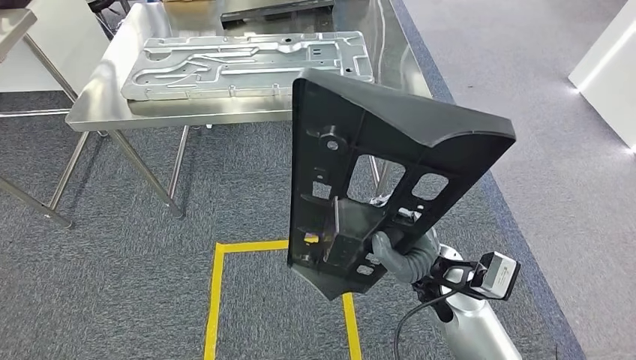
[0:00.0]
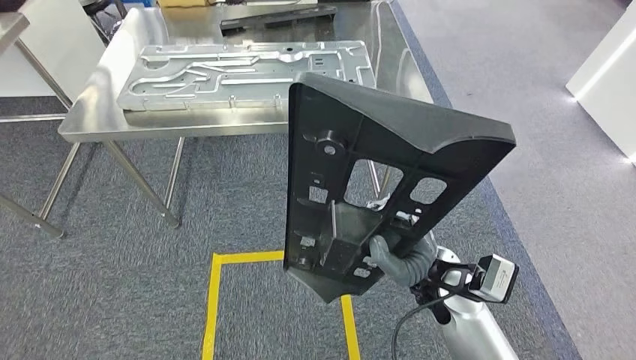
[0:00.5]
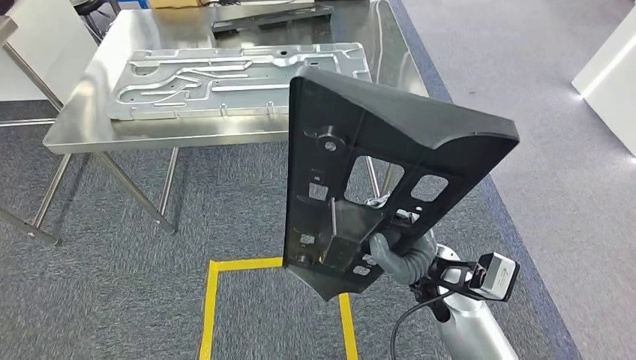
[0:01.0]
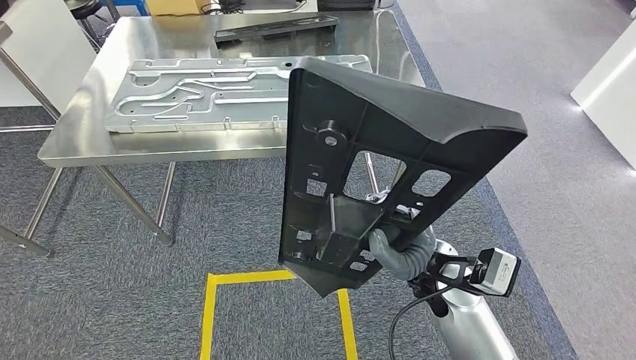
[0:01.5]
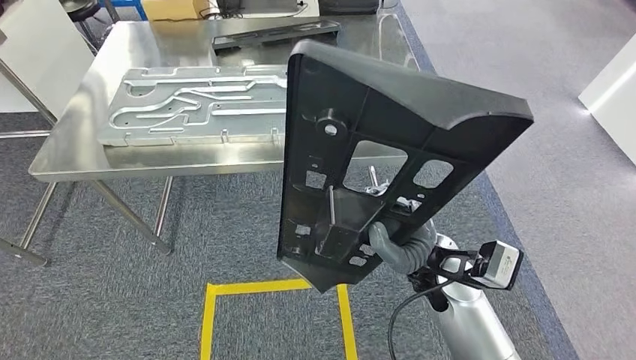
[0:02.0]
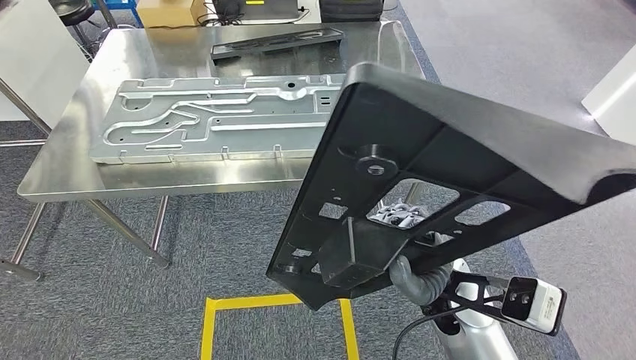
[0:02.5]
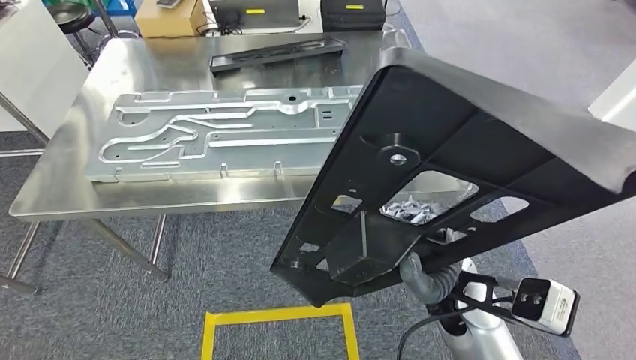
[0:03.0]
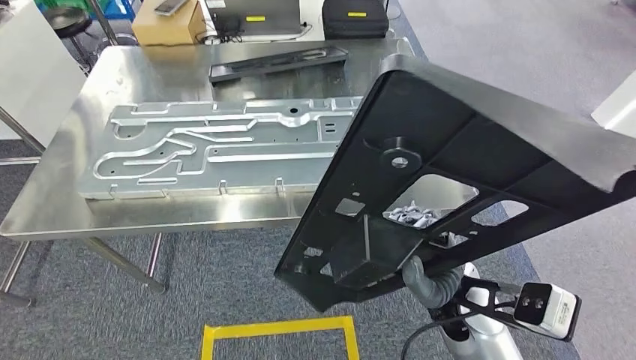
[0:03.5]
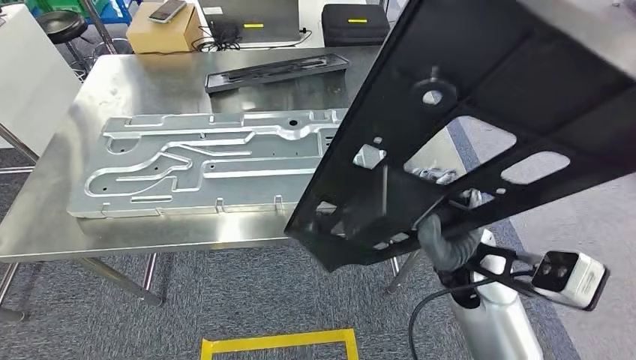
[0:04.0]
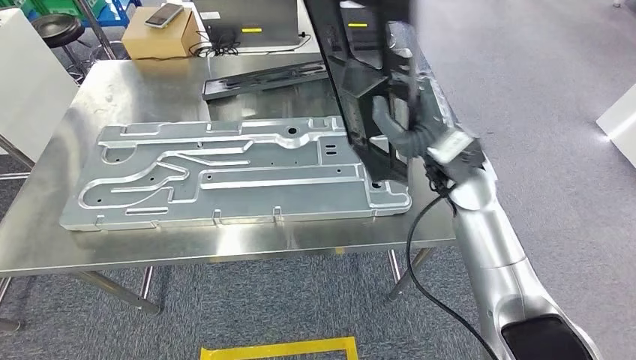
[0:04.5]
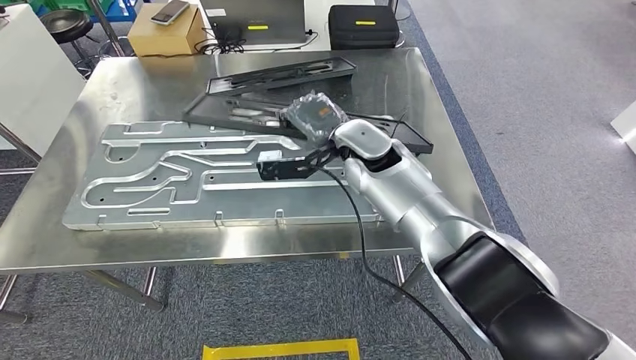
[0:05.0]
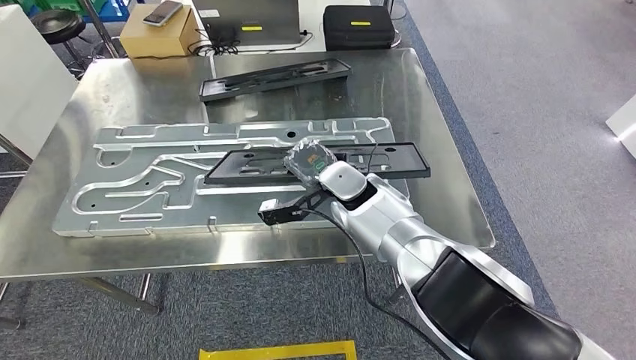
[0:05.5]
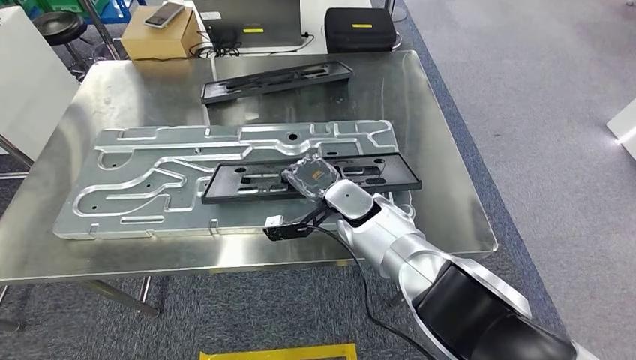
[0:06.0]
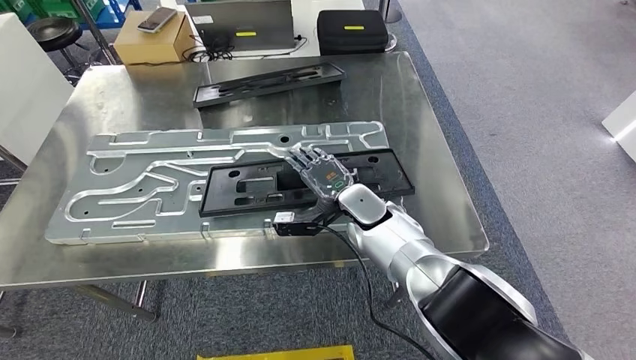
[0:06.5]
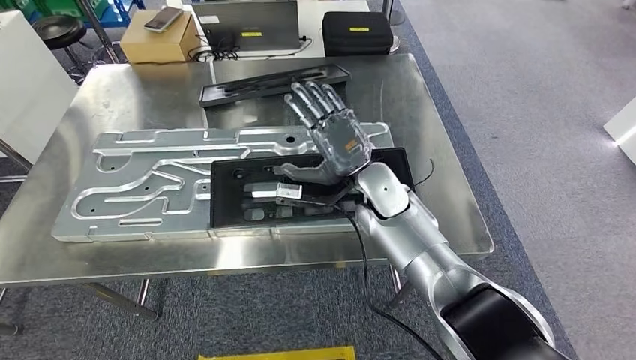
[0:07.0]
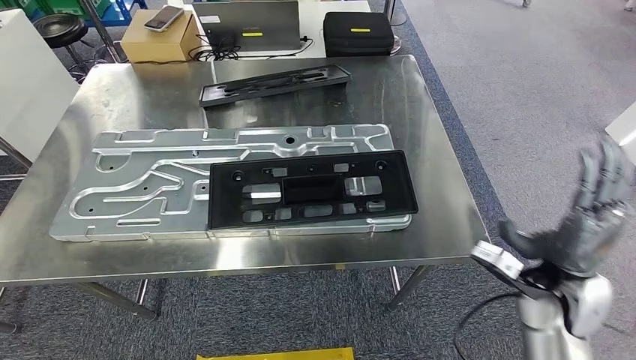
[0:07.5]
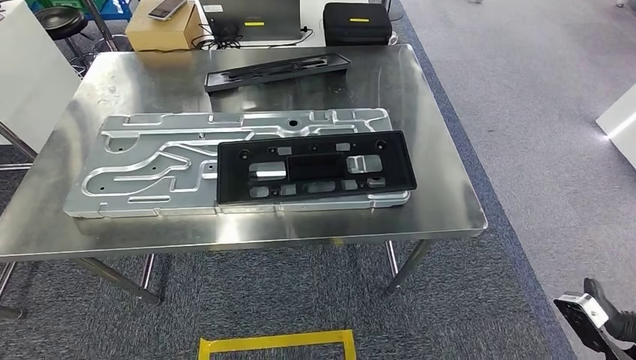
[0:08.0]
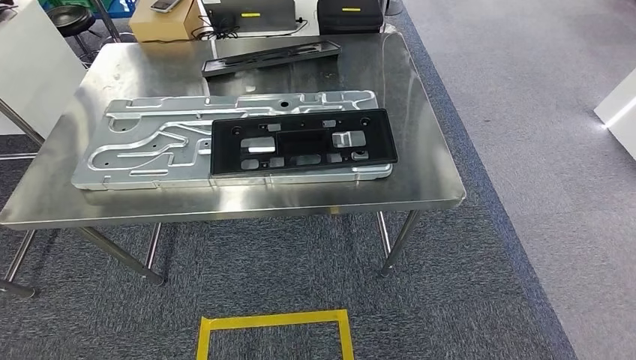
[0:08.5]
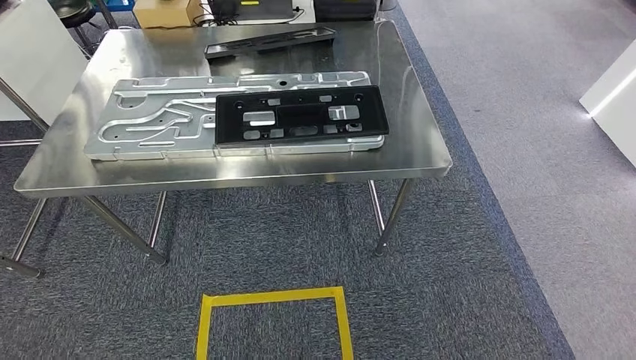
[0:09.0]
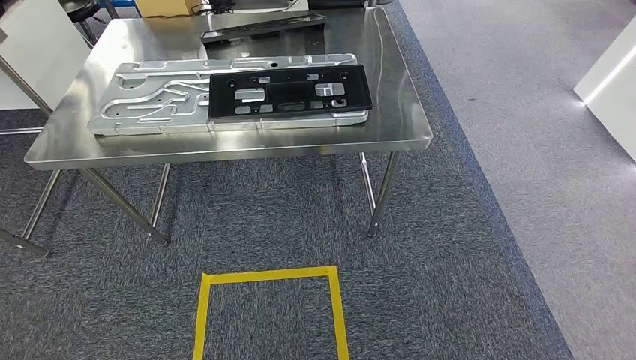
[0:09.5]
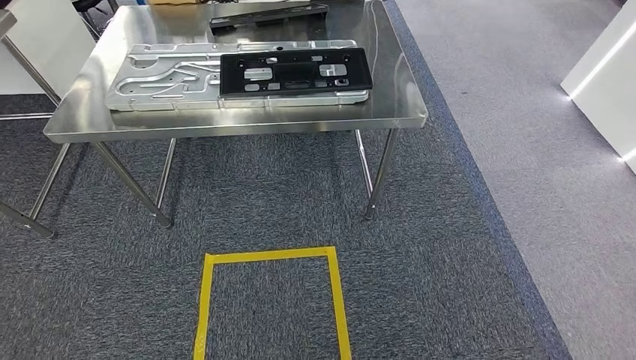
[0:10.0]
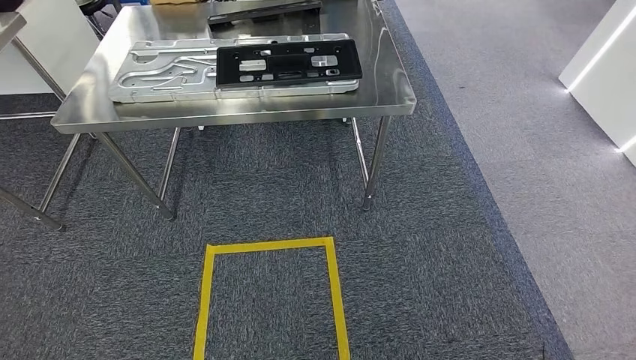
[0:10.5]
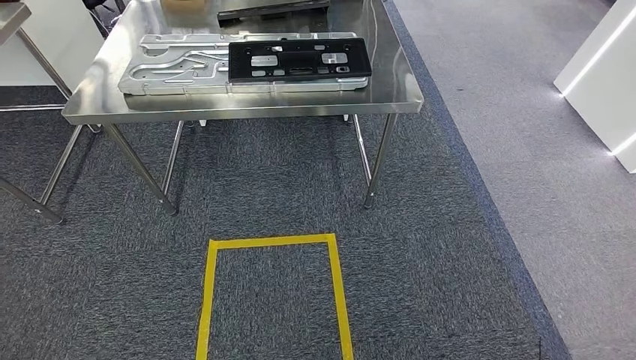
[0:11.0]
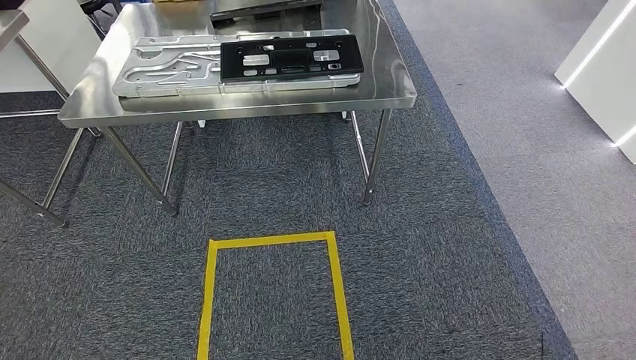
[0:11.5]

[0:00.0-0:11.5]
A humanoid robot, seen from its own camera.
Step, 0:00.0 to 0:08.0: Insert the large material into the corresponding slot on the workbench.
Step, 0:08.5 to 0:11.5: Move to the initial position of the shelf.
